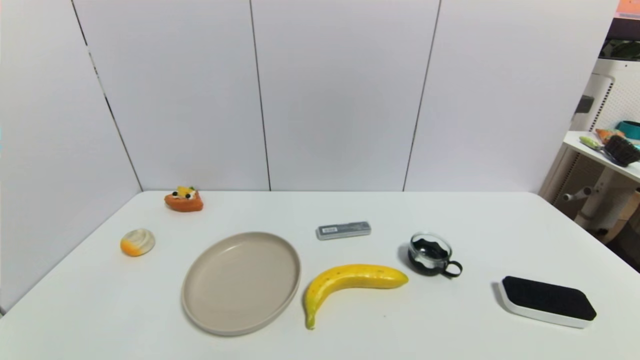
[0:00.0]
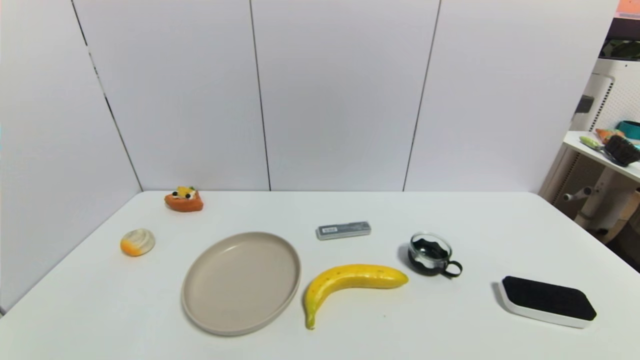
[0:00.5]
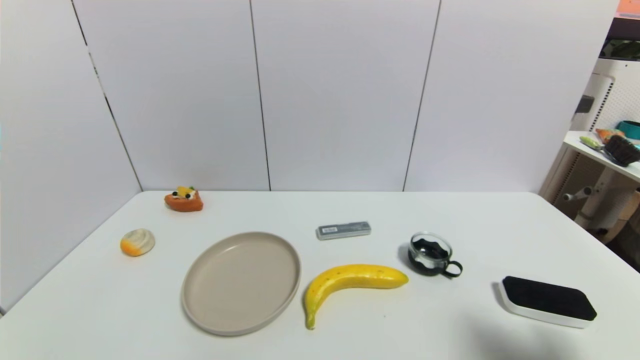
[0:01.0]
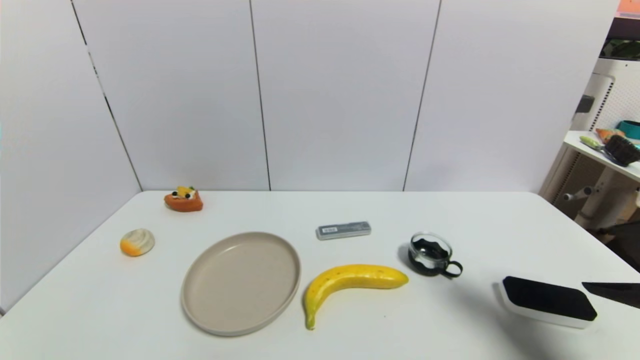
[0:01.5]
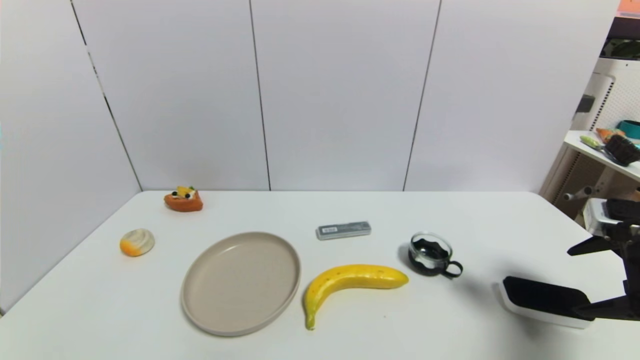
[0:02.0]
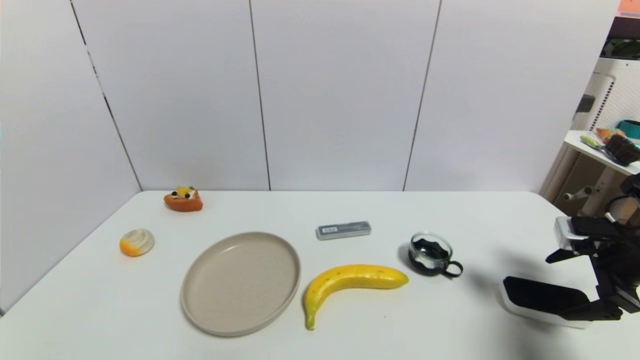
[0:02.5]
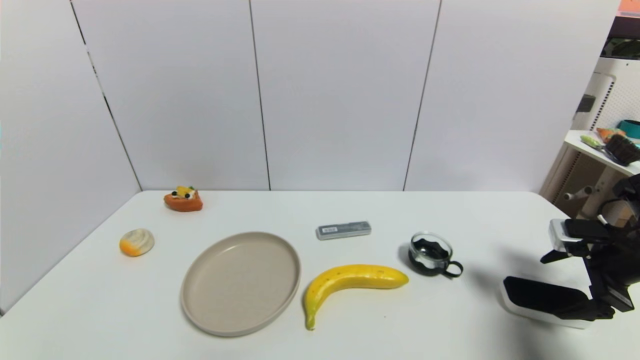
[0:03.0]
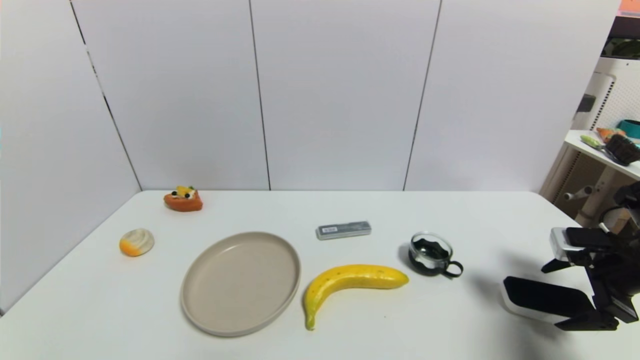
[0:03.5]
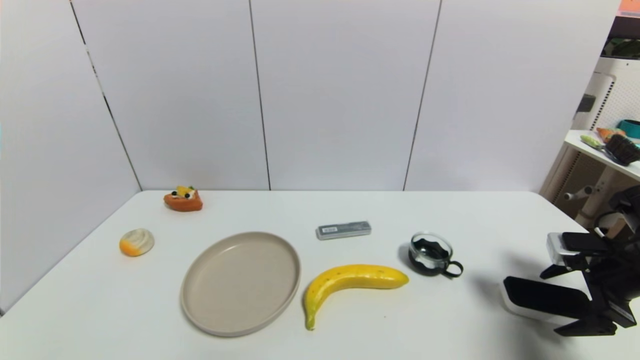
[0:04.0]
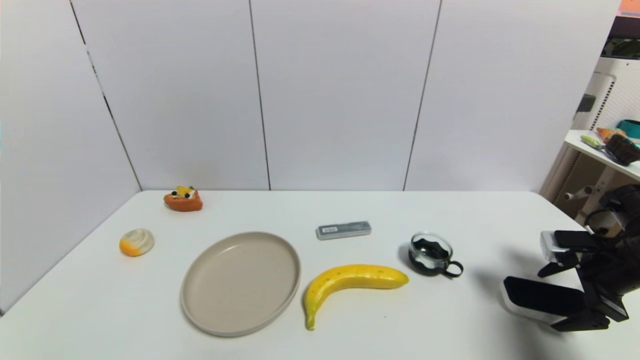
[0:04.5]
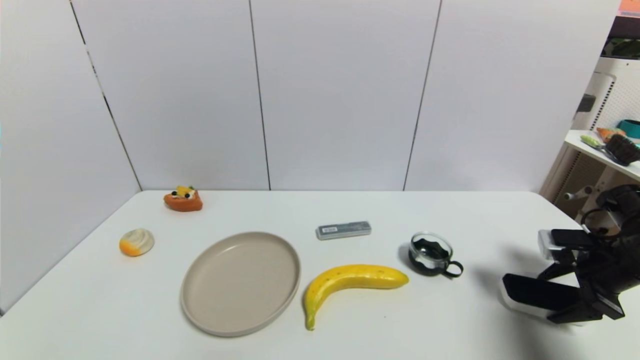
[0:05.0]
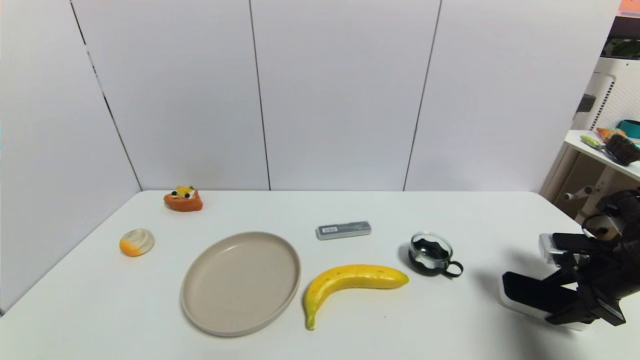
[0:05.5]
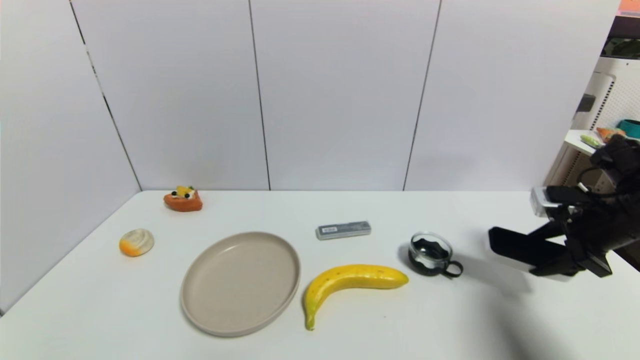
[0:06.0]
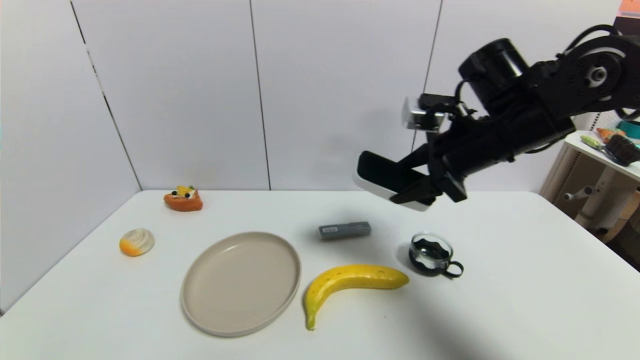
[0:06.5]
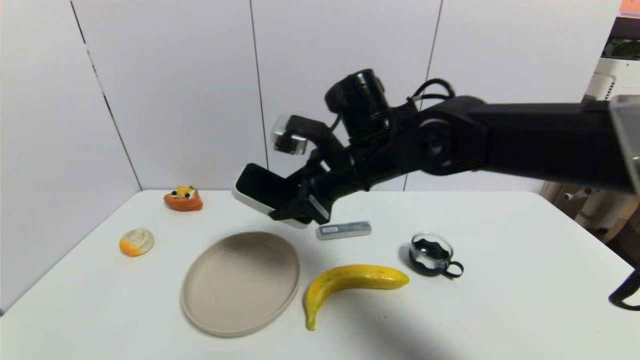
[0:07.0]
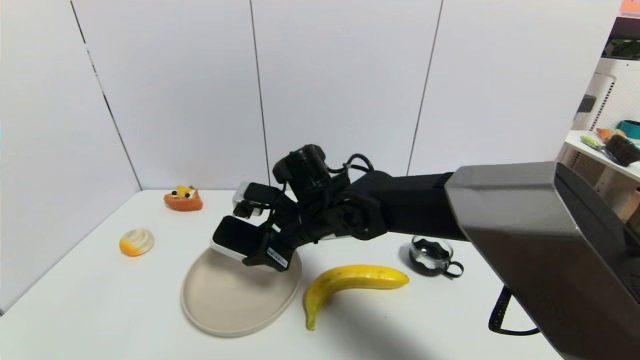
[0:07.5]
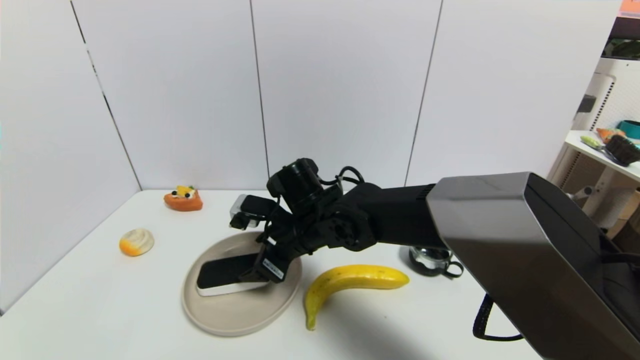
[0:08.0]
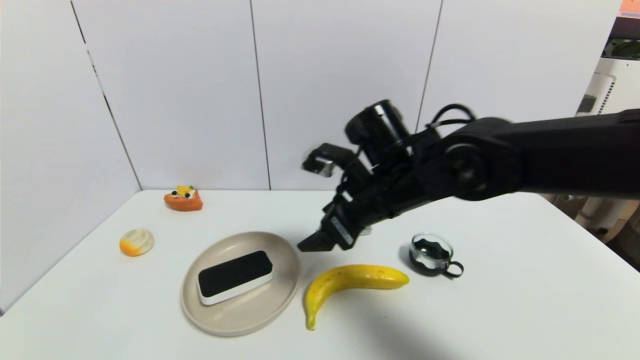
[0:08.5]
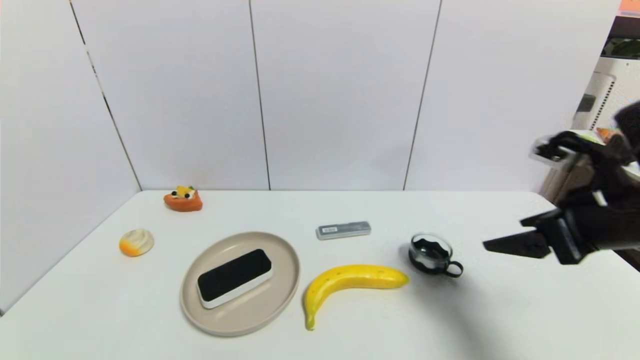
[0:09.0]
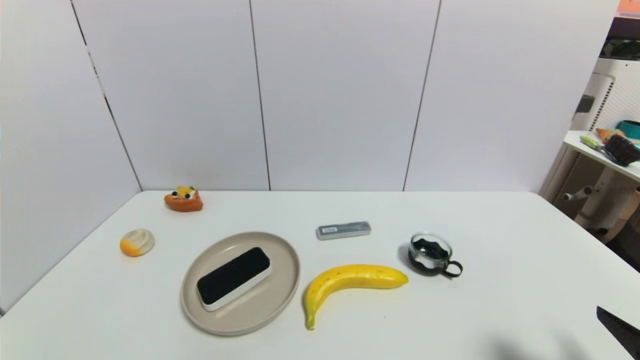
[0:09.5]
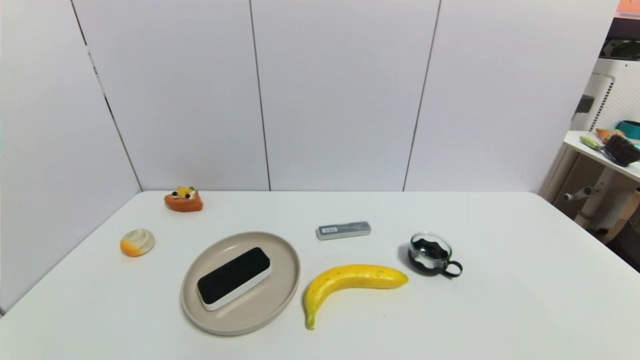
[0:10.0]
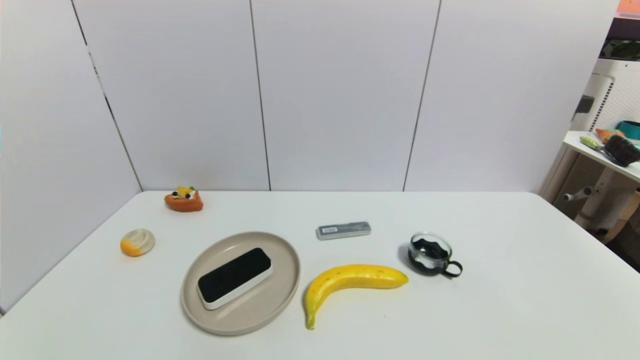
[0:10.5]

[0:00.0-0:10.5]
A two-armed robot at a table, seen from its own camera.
Task of the whole recording: use a gripper to pick the target object and place on the brown plate.
Step, 0:00.0 to 0:05.0: Grasp the blackboard erasure with the right gripper.
Step, 0:05.5 to 0:08.0: Place the blackboard erasure on the brown plate with the right gripper.
0:00.0 to 0:02.0: The right gripper shifts some 25 cm forward and upward.
0:02.0 to 0:04.0: The right gripper goes approximately 5 cm downward.
0:04.0 to 0:06.5: The right gripper heads to the left and upward, covering some 25 cm, and closes.
0:06.5 to 0:08.5: The right gripper travels to the left and downward by roughly 10 cm, and opens.
0:08.5 to 0:10.5: The right gripper heads backward, to the right and downward, covering some 40 cm.
